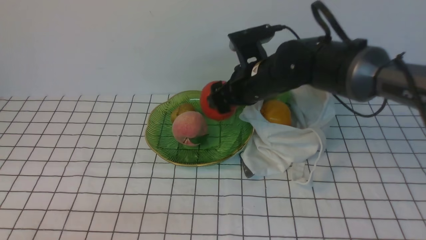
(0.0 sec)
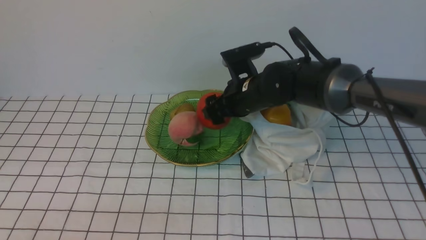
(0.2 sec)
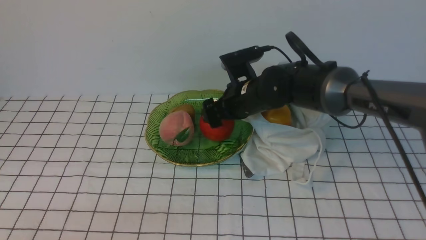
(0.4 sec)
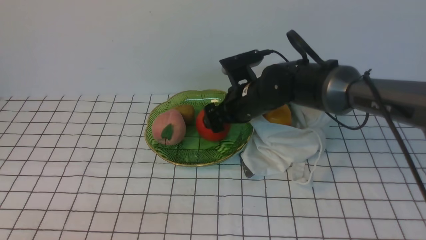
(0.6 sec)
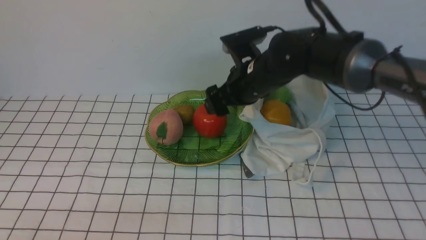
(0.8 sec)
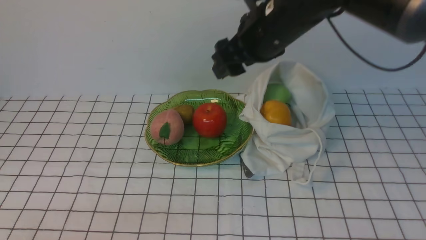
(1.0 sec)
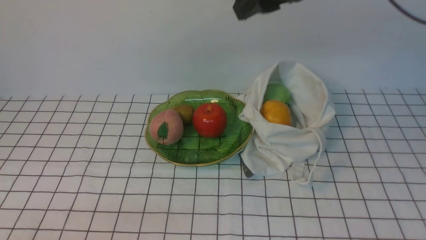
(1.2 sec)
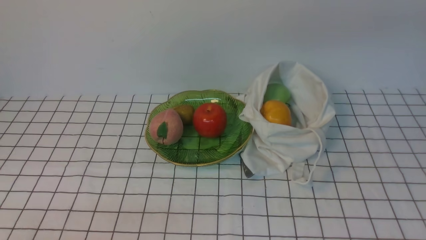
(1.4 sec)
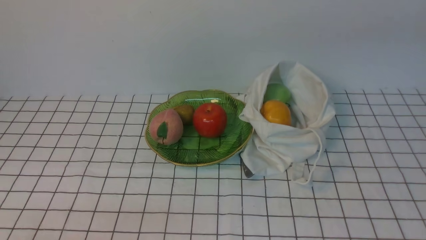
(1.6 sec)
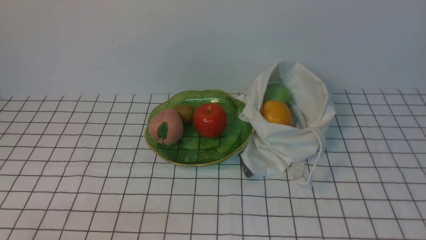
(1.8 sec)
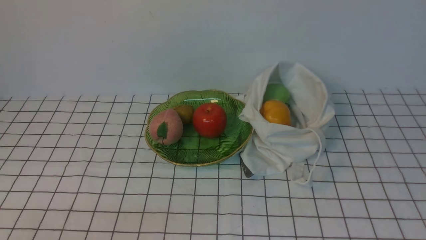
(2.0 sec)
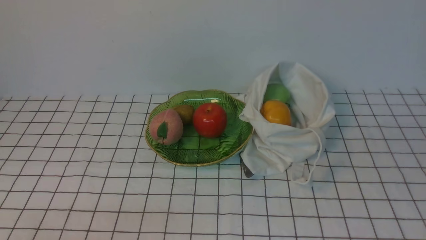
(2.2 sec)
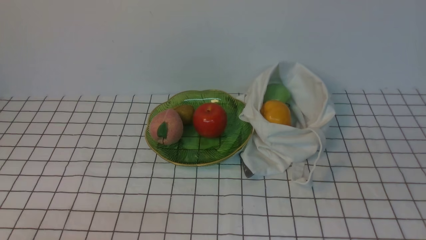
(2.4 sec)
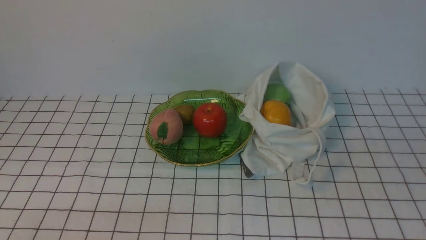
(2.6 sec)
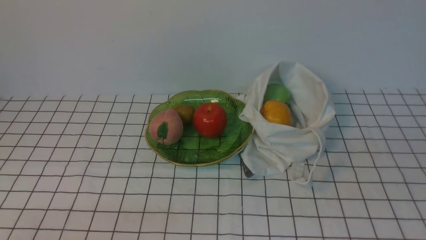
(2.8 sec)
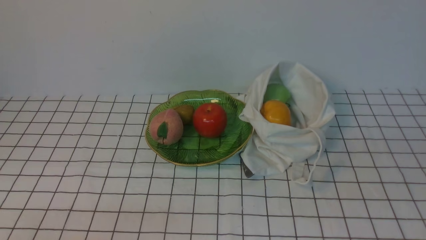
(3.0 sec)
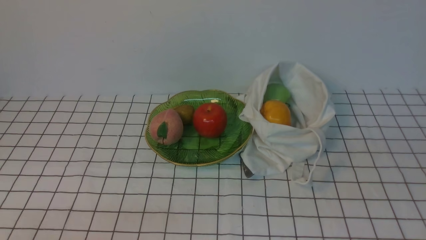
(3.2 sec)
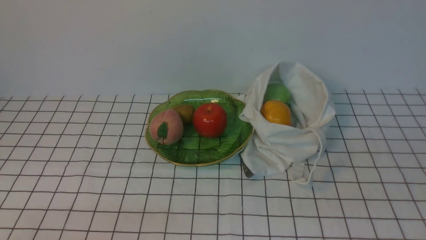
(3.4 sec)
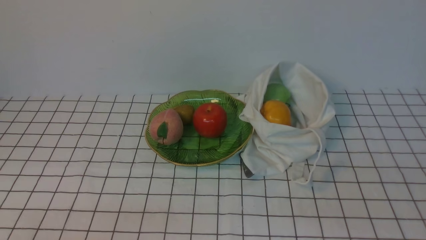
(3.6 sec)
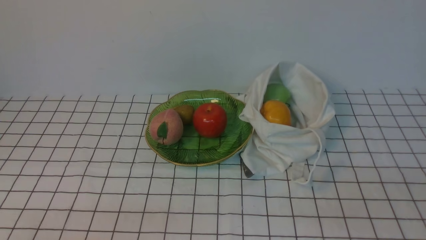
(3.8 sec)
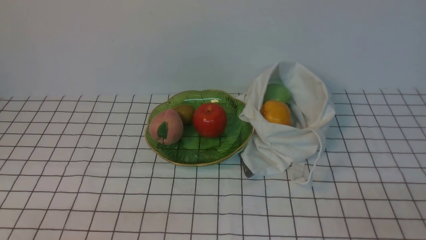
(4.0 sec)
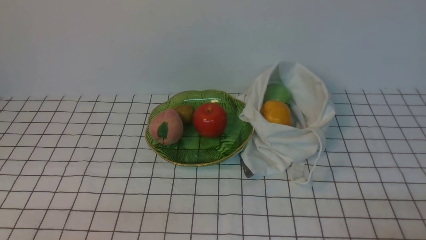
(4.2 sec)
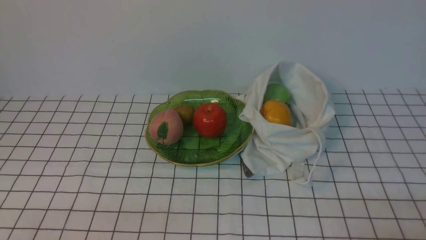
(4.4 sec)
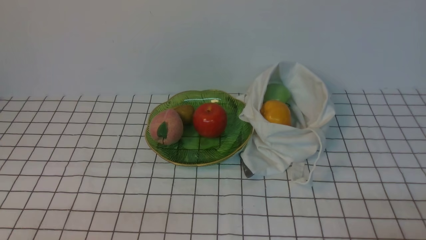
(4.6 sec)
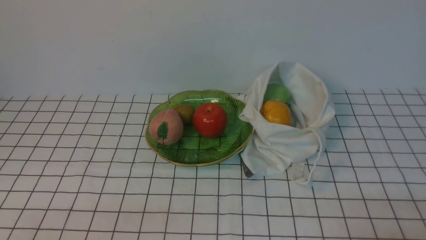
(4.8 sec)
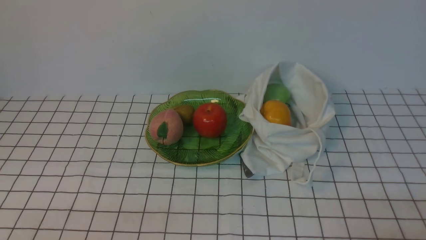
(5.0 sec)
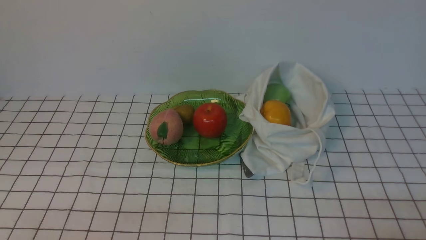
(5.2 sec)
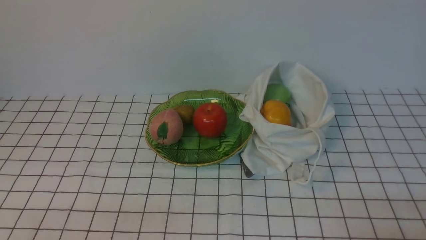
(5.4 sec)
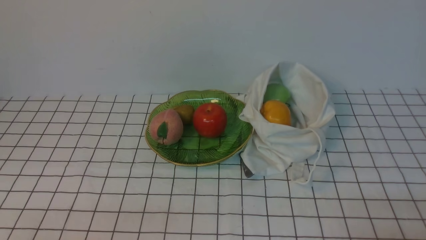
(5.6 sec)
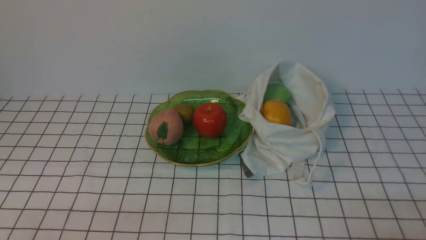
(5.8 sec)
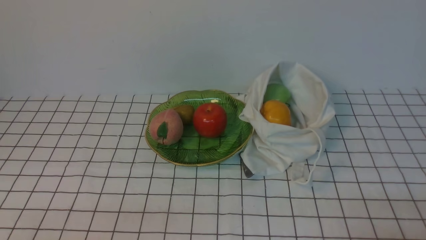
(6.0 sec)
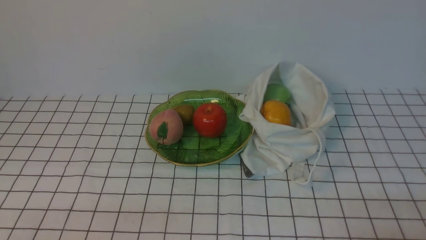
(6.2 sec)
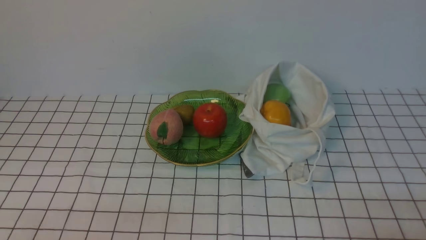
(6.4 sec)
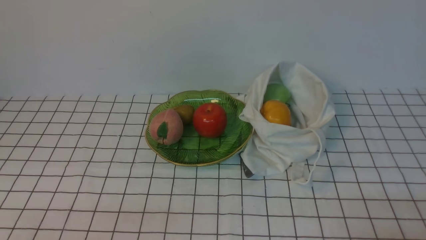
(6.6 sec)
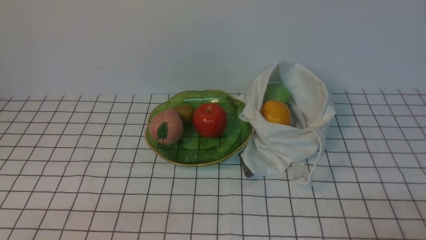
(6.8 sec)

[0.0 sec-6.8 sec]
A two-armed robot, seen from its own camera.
0.0 sec to 1.4 sec: The right gripper travels upward and backward by some 25 cm, and closes up.
5.4 sec to 6.8 sec: The two grippers keep their place.
